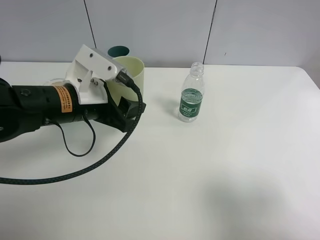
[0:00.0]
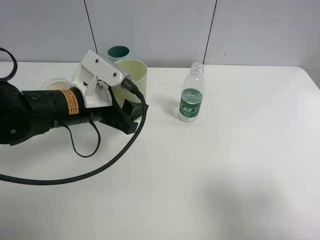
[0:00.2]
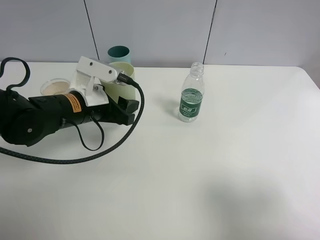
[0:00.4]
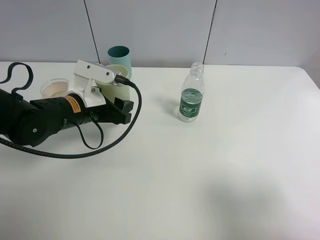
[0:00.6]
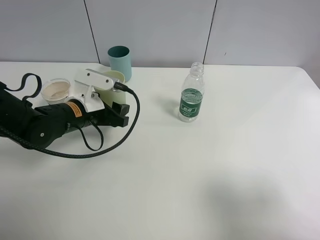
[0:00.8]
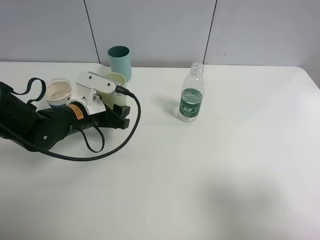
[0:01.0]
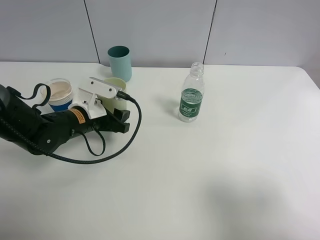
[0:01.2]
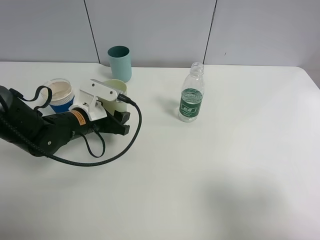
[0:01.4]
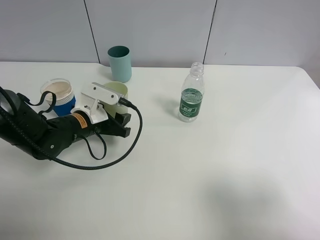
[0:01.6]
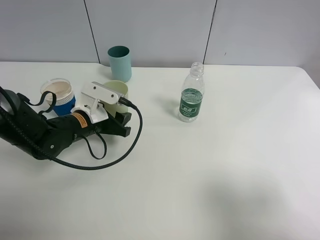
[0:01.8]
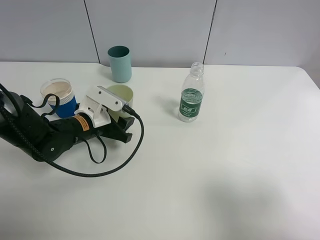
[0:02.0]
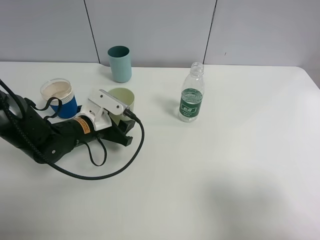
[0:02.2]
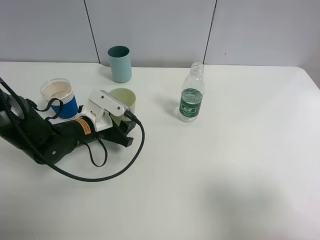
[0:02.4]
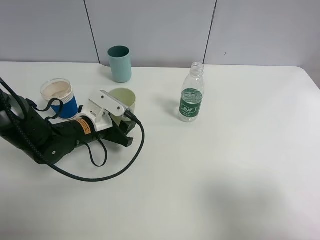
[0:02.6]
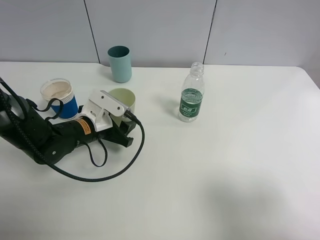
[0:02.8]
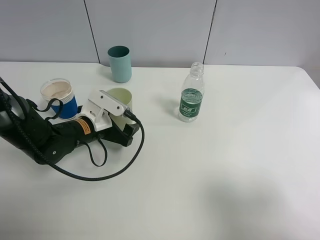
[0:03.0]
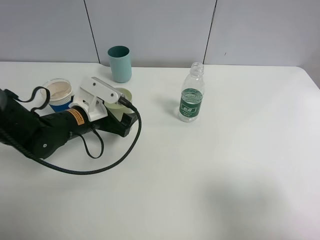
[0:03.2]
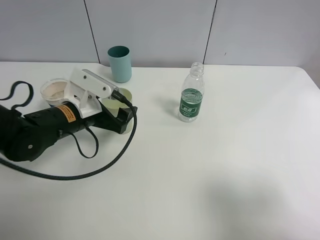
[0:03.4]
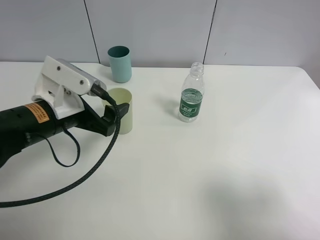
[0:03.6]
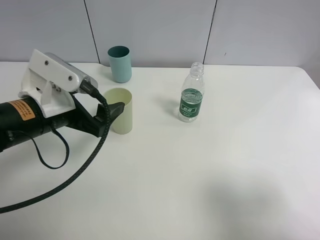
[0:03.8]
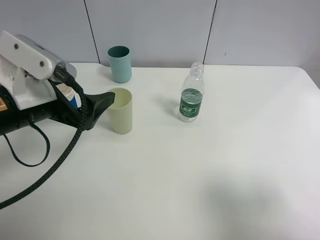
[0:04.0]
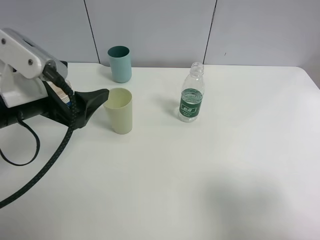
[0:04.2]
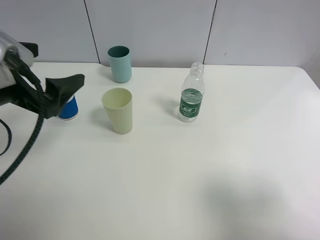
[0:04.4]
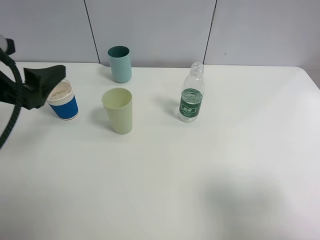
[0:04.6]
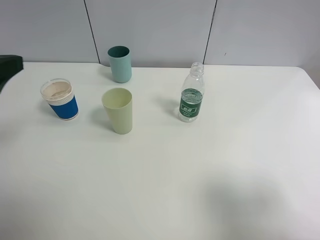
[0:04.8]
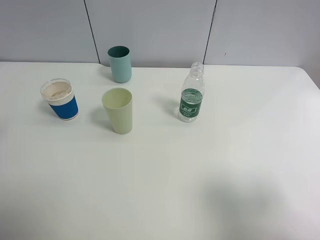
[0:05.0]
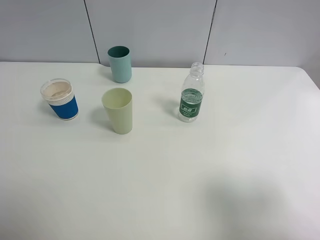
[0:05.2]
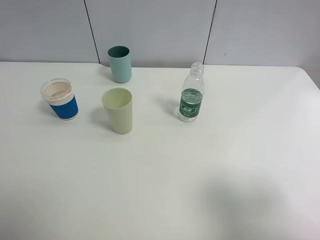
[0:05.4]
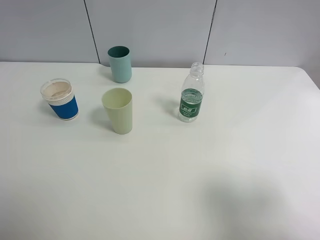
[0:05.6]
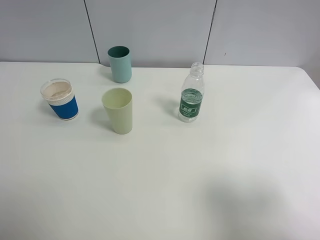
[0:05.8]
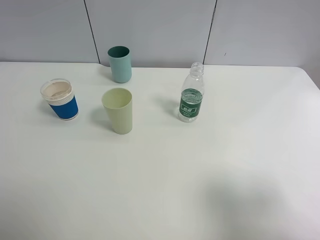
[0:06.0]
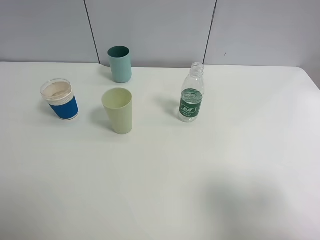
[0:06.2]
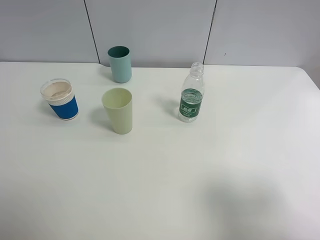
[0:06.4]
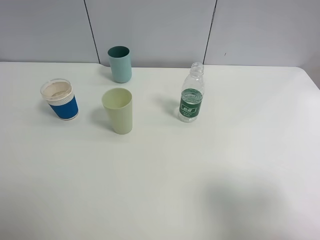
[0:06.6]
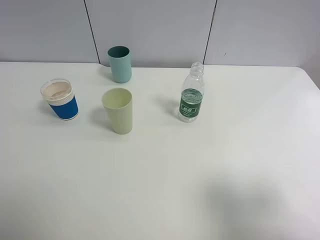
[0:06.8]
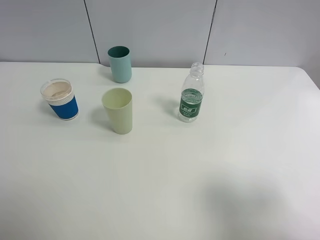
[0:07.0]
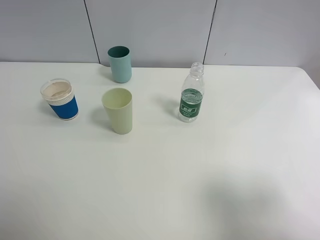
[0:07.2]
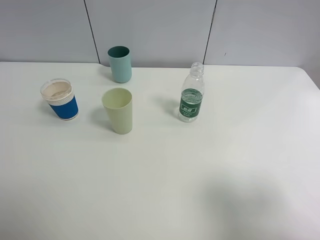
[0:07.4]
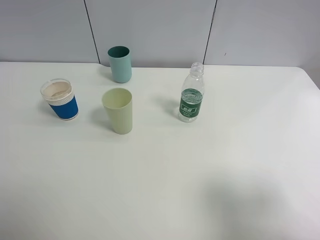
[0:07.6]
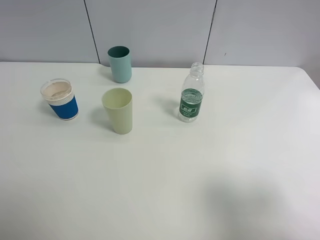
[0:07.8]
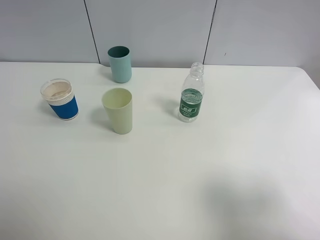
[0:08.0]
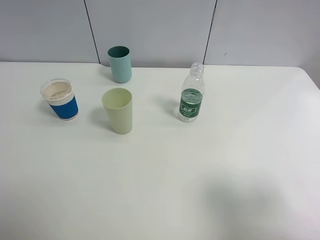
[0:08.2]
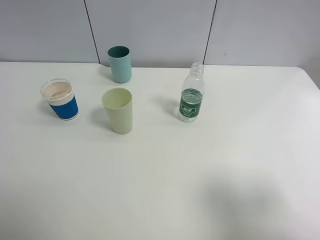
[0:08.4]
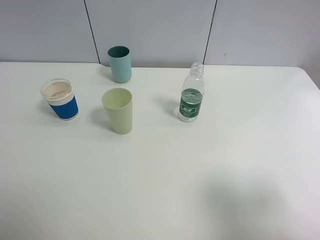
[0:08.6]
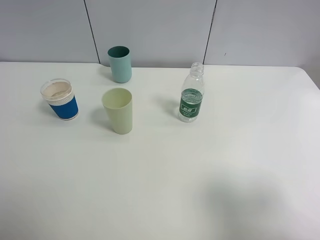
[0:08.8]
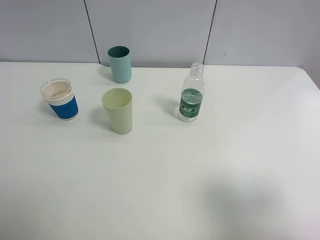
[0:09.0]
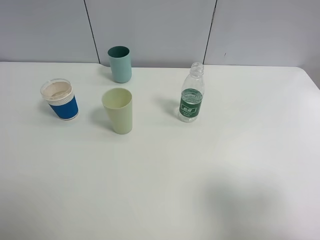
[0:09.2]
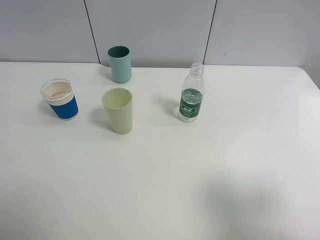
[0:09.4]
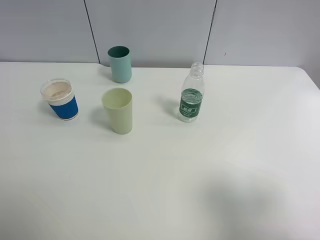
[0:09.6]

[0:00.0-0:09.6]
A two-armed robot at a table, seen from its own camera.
Task of the whole recording: use a clamp to hold the bottle of the drink, pour the beverage into a random cup, then clamp the cup containing the drink and pour the drink into another random cup.
Step, 0:00.0 to 0:03.2: Place the green plastic cup on the table with left gripper.
0:00.0 to 0:01.6: The left gripper goes about 10 cm downward.
0:01.6 to 0:03.2: The left gripper opens up.
0:03.2 to 0:04.8: The left gripper heads upward, to the left and backward, covering some 25 cm.
0:04.8 to 0:06.4: The left gripper goes approximately 15 cm backward.
0:08.0 to 0:09.6: Neither gripper changes place.
